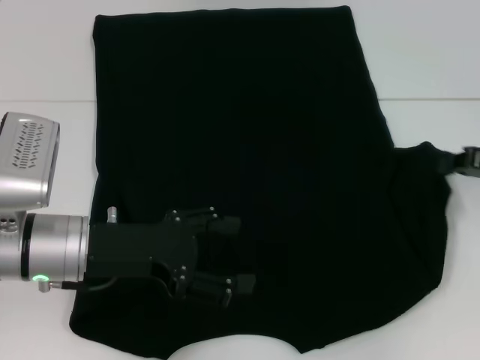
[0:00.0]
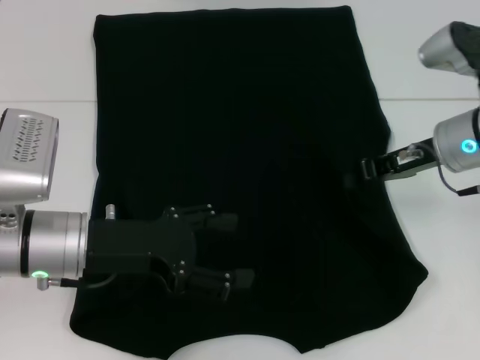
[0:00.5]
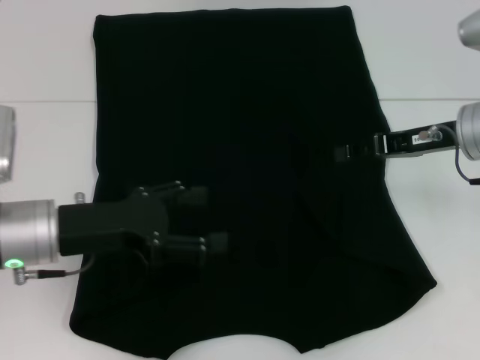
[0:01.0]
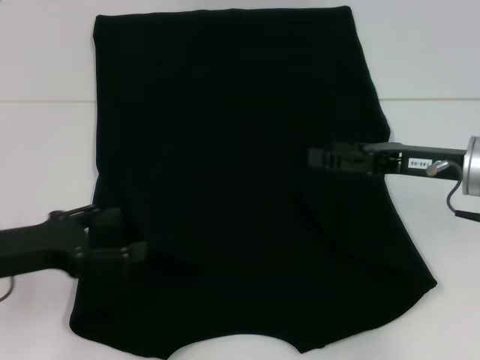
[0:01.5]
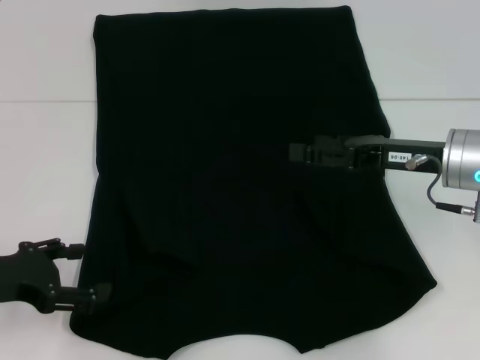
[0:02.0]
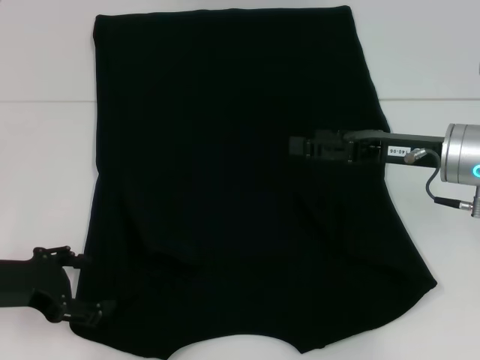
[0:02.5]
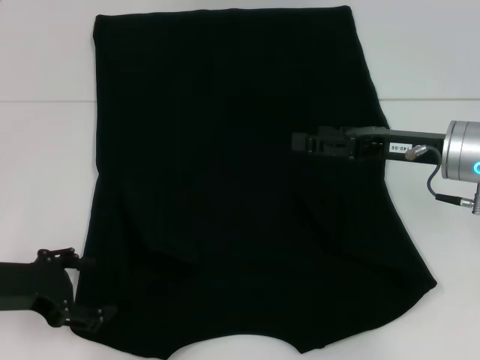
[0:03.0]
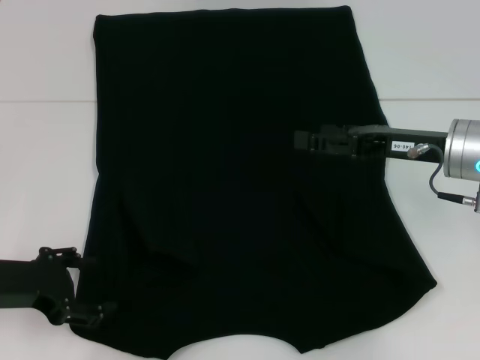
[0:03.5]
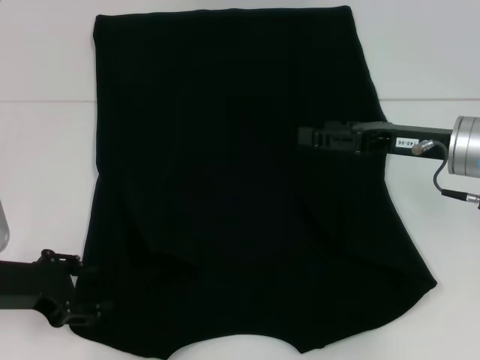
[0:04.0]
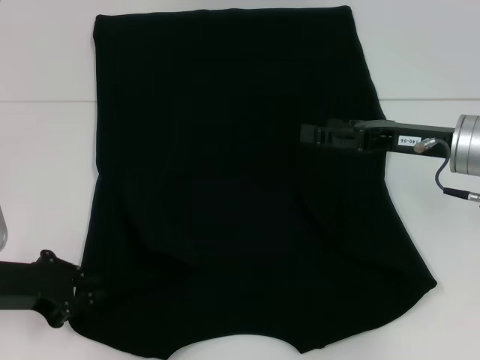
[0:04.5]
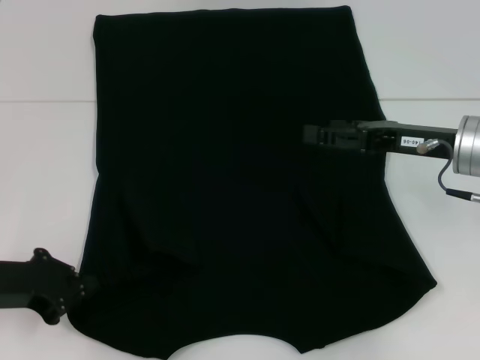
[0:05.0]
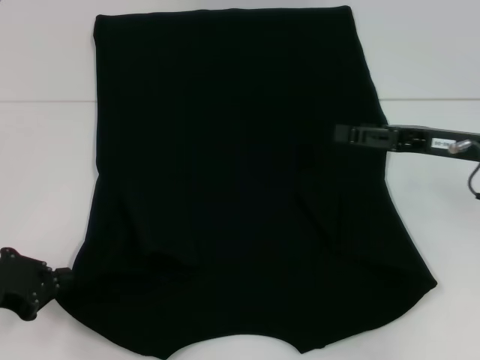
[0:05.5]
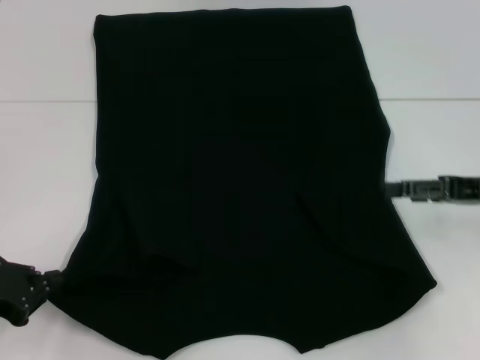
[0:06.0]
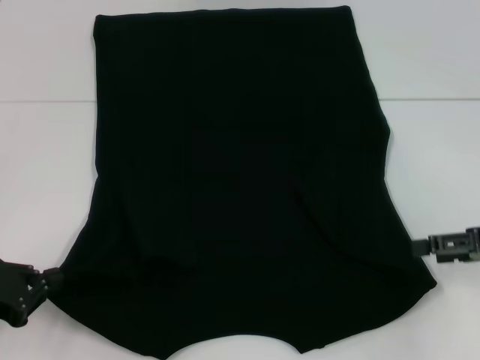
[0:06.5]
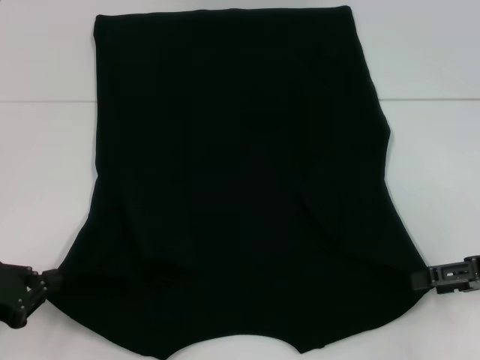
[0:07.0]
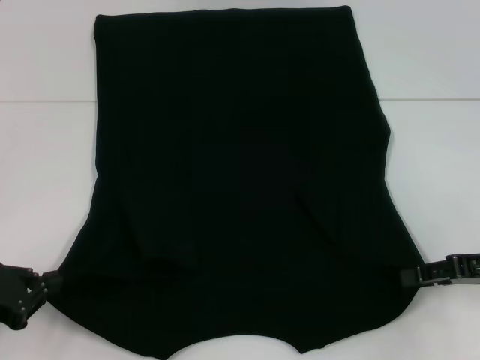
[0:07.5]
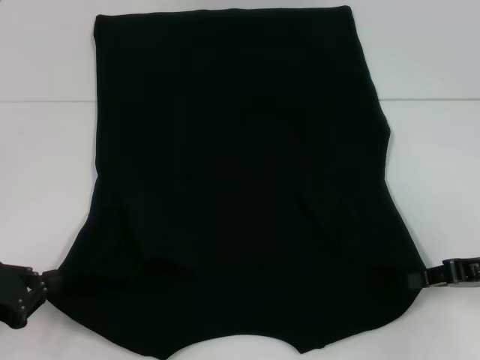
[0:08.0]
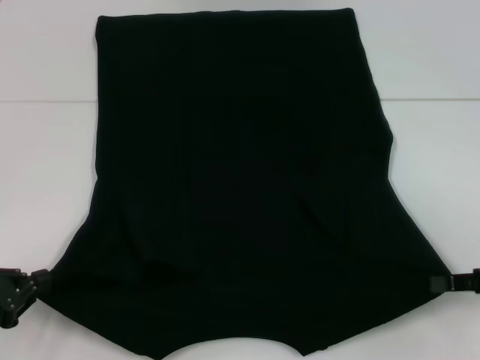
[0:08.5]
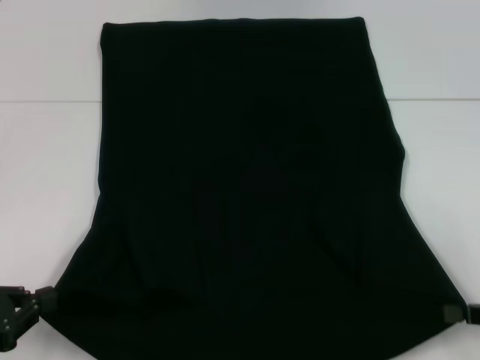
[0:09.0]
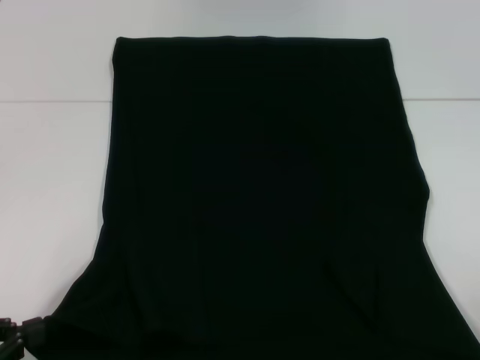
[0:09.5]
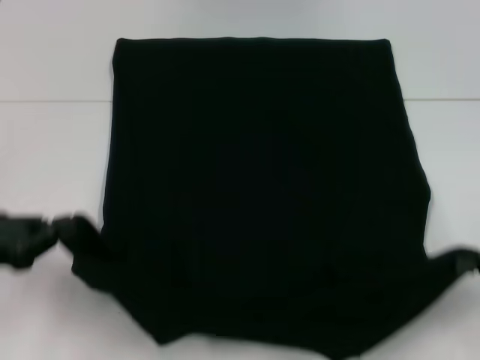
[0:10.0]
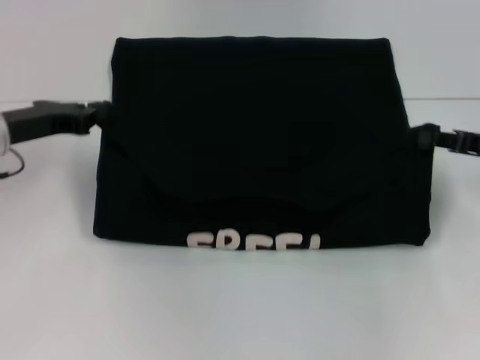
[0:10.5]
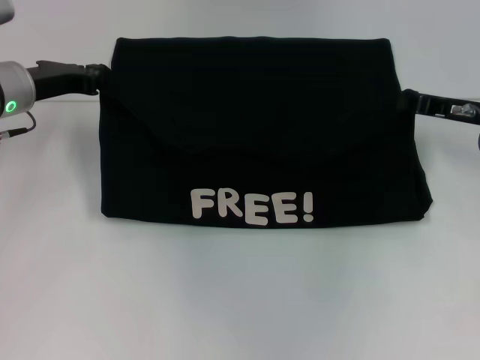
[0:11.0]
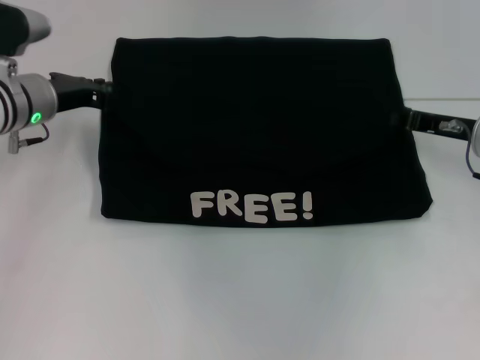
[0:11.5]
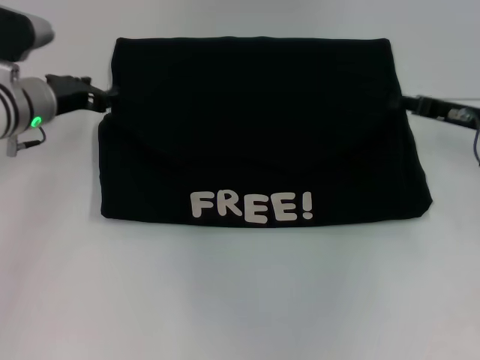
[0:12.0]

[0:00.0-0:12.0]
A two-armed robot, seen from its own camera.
Step, 0:01.0 to 0:05.0: Grab the bottom left corner with your left hand.
Step, 0:05.5 to 0:08.0: Grab the bottom right corner with your right hand.
Step, 0:08.5 to 0:11.5: Fold the clothes with your left hand.
Step, 0:08.5 to 0:11.5: Fold the clothes with your right hand.
0:00.0 to 0:02.0: The two grippers go some 10 cm to the left. The right gripper opens up.
0:02.0 to 0:04.0: The grippers stay close to where they were, moving slightly.
0:04.0 to 0:06.0: The right gripper travels to the right by roughly 10 cm, while the left gripper shifts by about 5 cm, and closes.
0:06.0 to 0:08.0: The right gripper ends up roughly 5 cm from where it was, and closes.
0:08.0 to 0:10.0: The left gripper moves approximately 5 cm backward and comes back, while the right gripper shifts about 5 cm backward.
0:10.0 to 0:12.0: The right gripper is displaced forward and to the left by roughly 20 cm. Meanwhile the left gripper is displaced forward and to the right by roughly 20 cm.

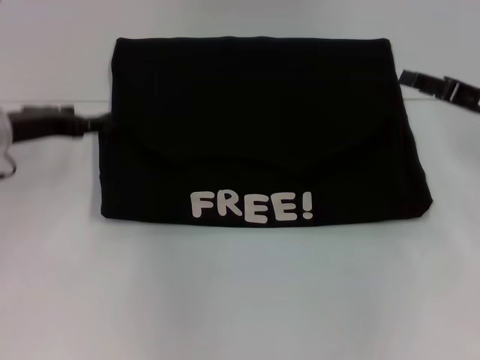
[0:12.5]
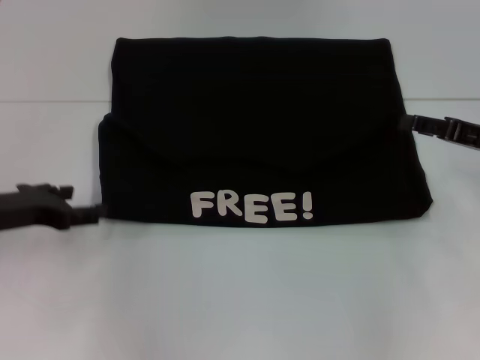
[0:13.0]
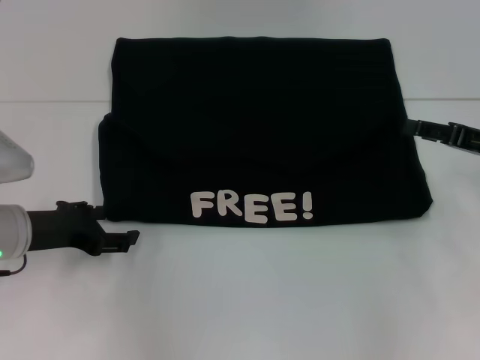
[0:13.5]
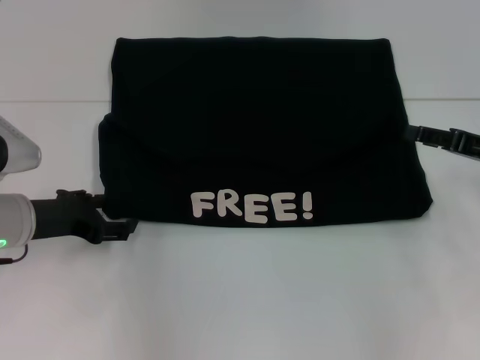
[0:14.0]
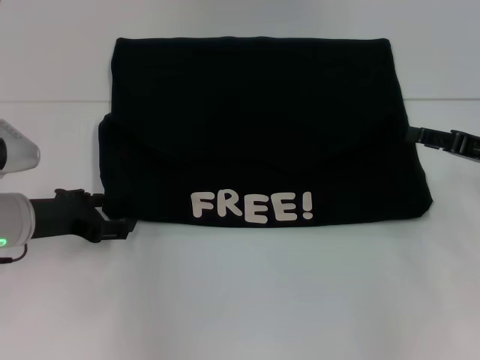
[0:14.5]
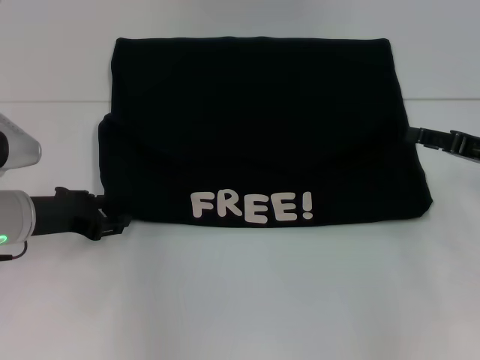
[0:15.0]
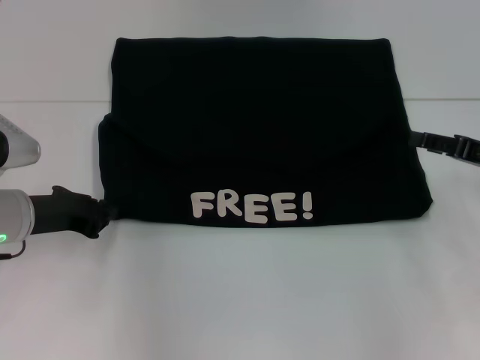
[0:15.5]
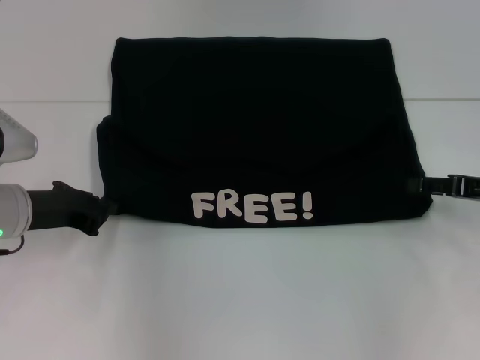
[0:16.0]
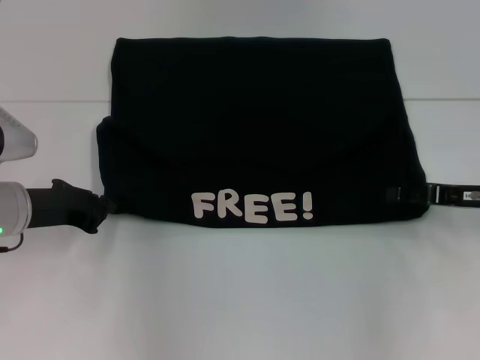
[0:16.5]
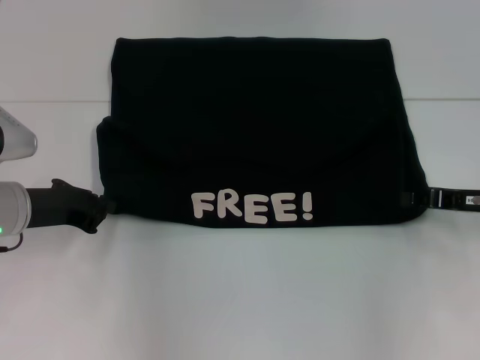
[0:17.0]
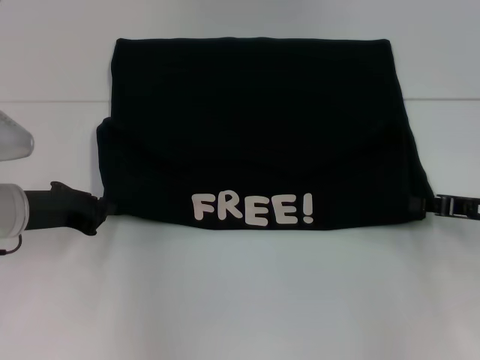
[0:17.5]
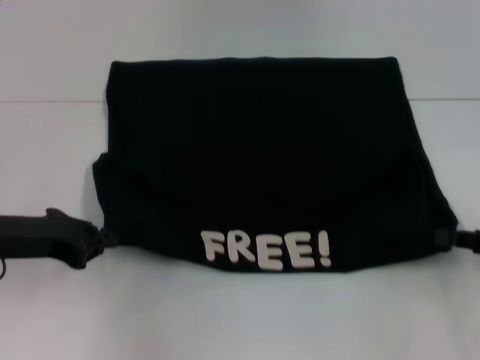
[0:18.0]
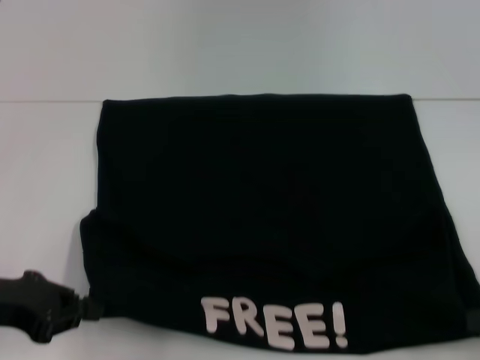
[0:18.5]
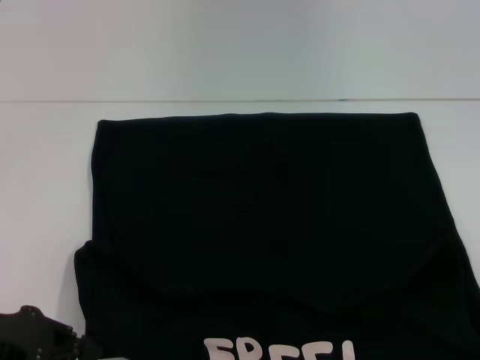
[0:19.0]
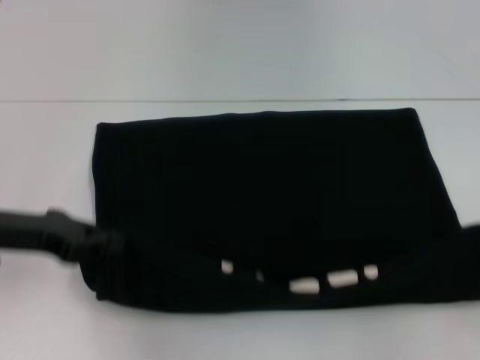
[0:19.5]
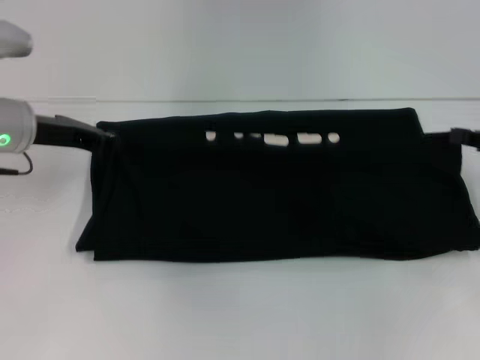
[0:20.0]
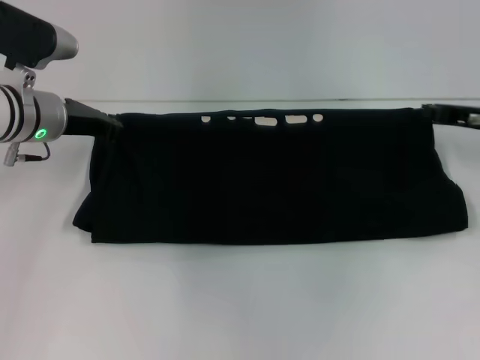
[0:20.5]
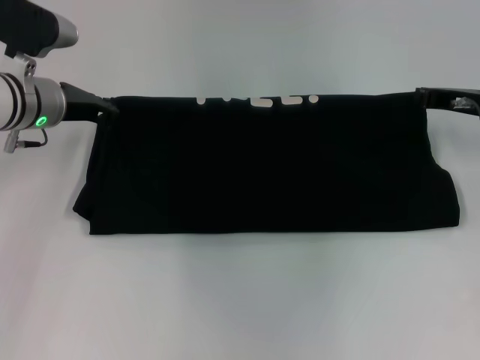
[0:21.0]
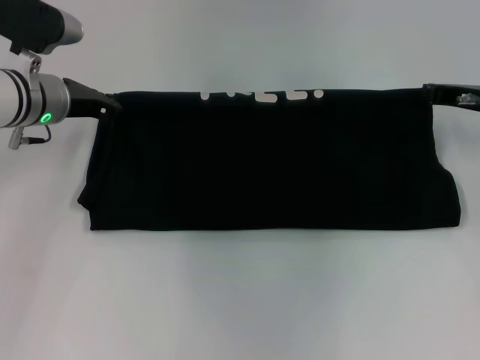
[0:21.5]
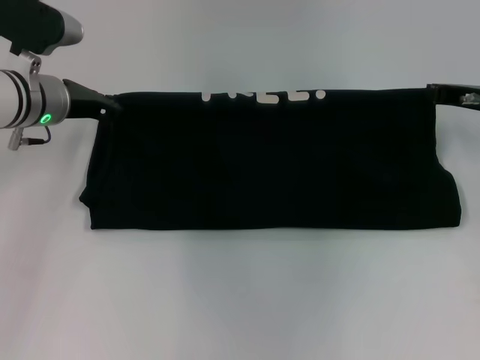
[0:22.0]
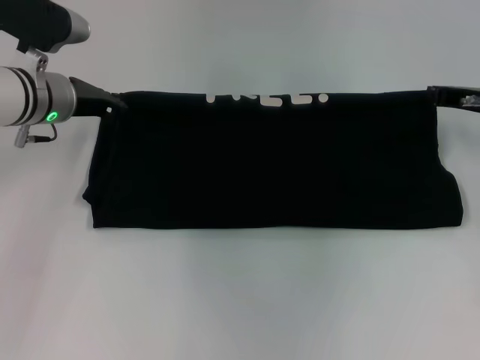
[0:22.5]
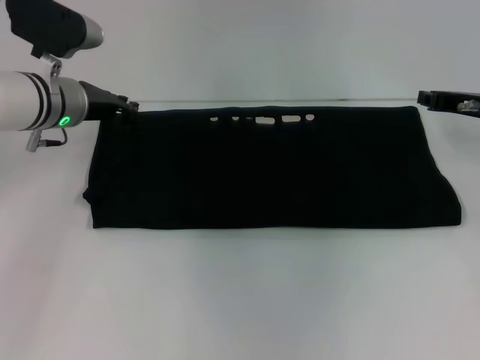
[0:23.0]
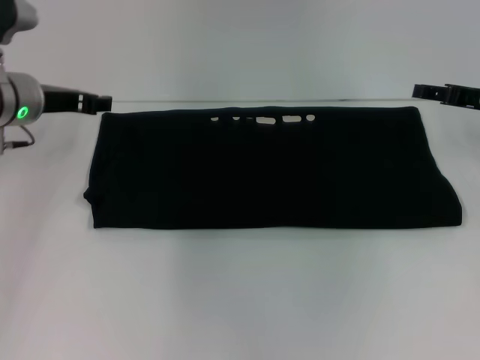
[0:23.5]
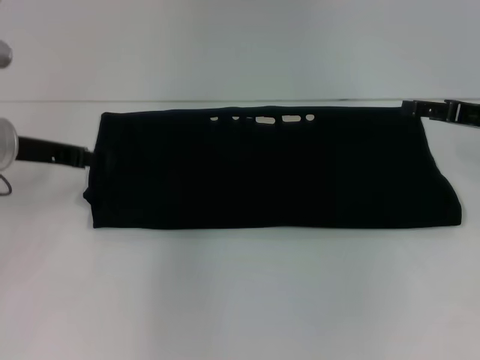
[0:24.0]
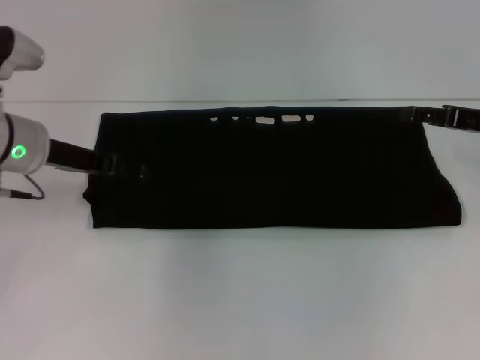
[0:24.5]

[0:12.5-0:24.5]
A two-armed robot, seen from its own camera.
Step, 0:12.5 to 0:19.0: Pull the clothes with your left hand.
Step, 0:12.5 to 0:19.0: Pull the clothes with your right hand.
Step, 0:19.5 to 0:23.0: Fold the clothes with your right hand.
0:12.5 to 0:14.5: The left gripper is displaced backward and downward by some 10 cm.
0:14.5 to 0:16.5: The left gripper closes.
0:16.5 to 0:18.5: The left gripper goes about 10 cm backward; the right gripper is displaced backward and to the right by some 15 cm, and closes up.
0:18.5 to 0:20.5: The two grippers go some 20 cm forward.
0:20.5 to 0:22.5: There are only small adjustments of the grippers.
0:22.5 to 0:24.5: The left gripper heads backward, covering some 5 cm, and opens up, while the right gripper opens.

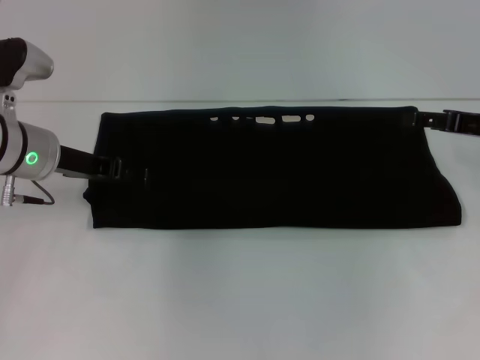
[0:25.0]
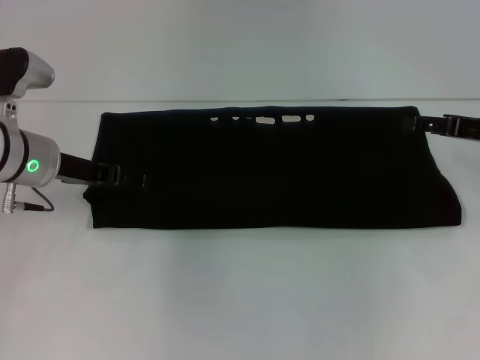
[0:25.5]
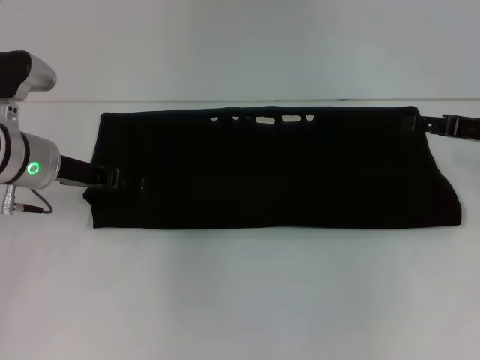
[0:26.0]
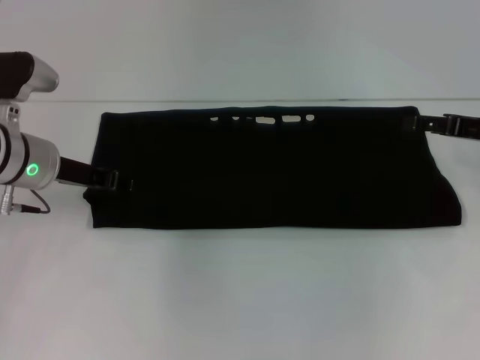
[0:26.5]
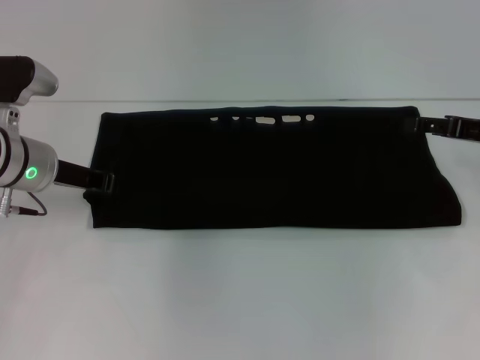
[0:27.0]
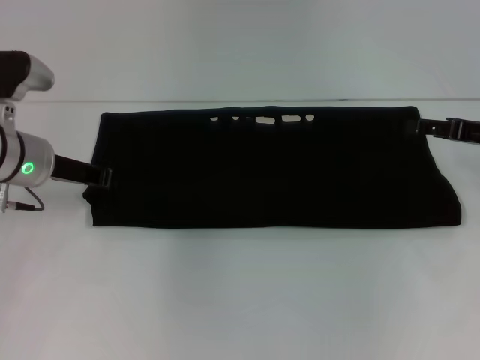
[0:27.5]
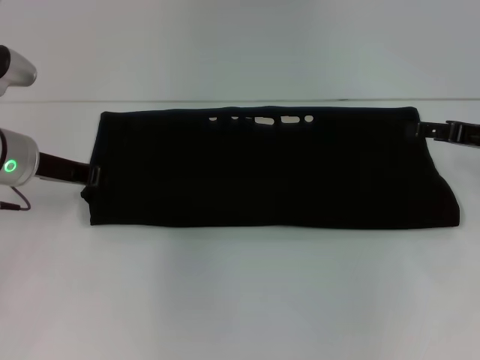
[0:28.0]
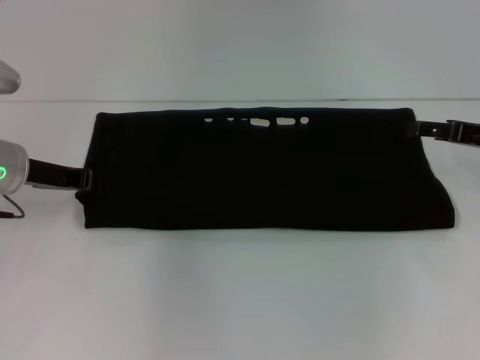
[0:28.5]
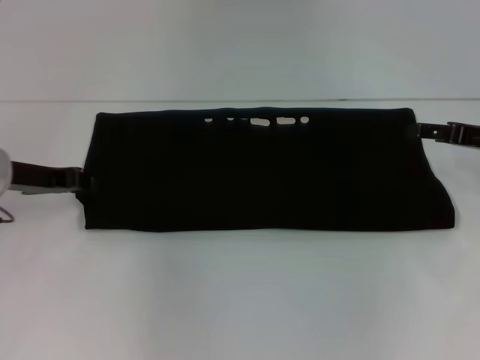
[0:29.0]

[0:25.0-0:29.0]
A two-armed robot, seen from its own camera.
0:25.0 to 0:27.0: The left gripper closes its fingers.
0:27.0 to 0:29.0: The left gripper shifts by some 5 cm.
